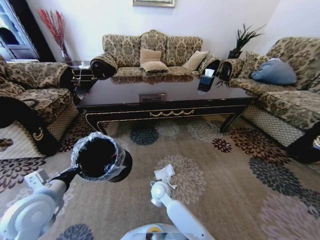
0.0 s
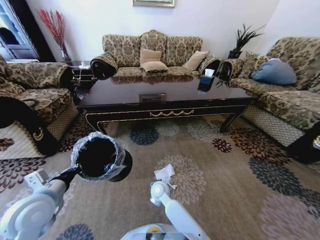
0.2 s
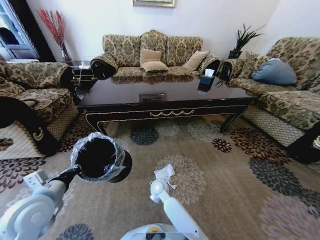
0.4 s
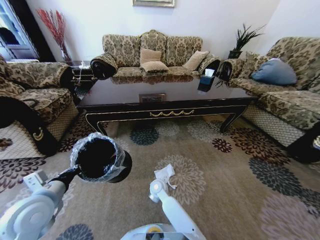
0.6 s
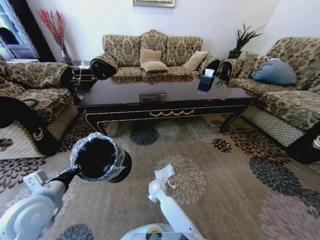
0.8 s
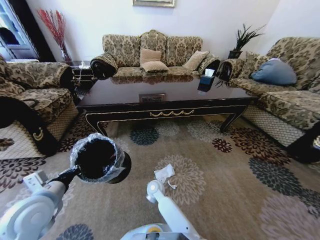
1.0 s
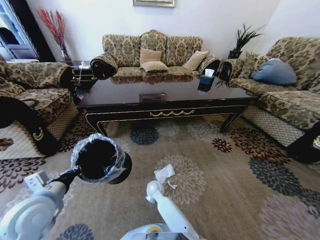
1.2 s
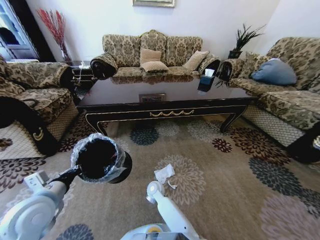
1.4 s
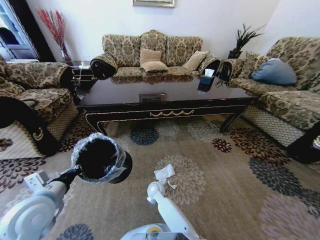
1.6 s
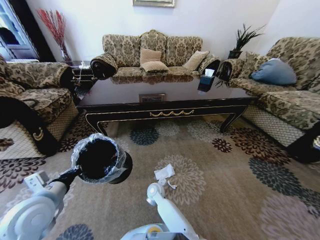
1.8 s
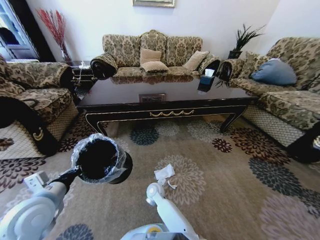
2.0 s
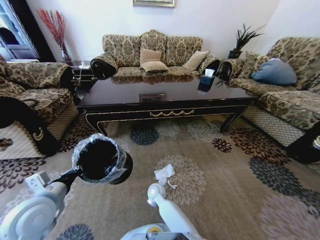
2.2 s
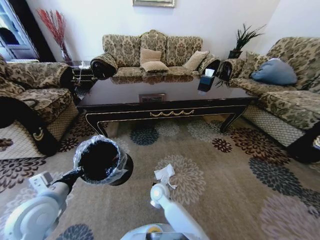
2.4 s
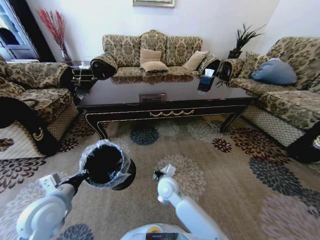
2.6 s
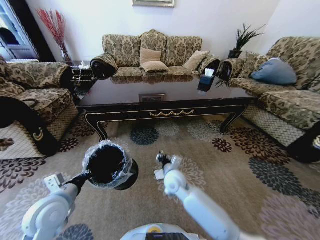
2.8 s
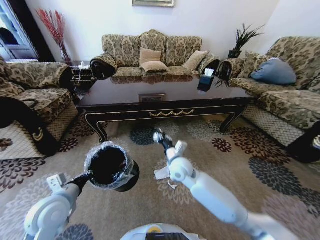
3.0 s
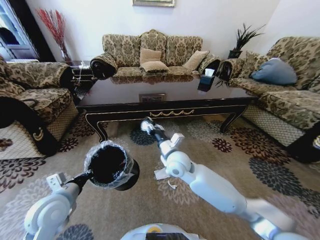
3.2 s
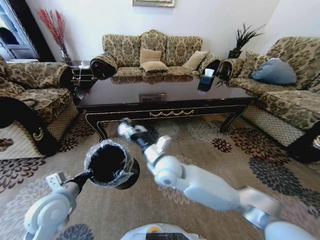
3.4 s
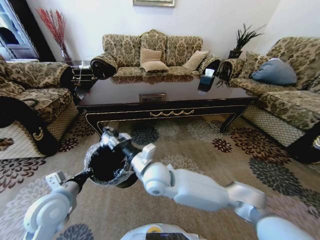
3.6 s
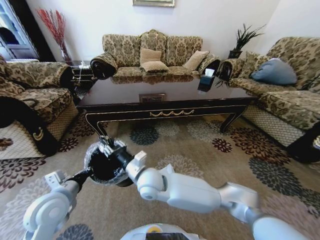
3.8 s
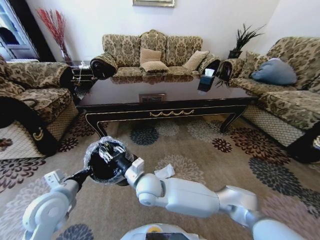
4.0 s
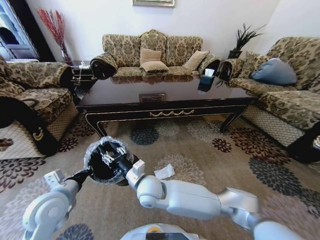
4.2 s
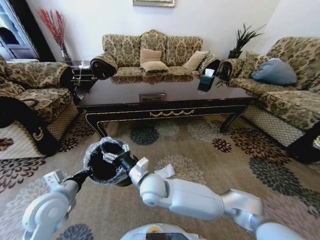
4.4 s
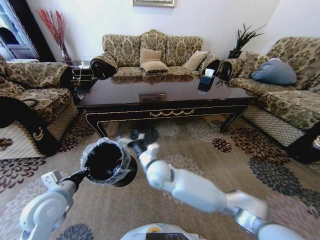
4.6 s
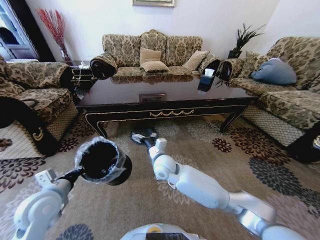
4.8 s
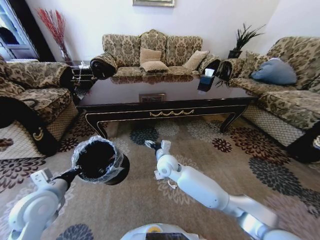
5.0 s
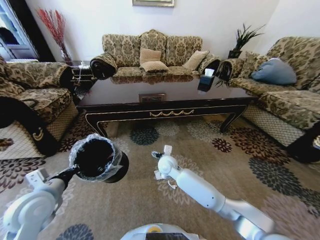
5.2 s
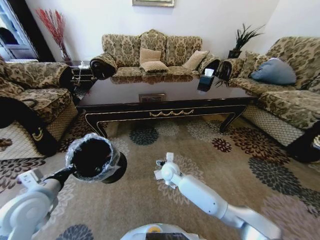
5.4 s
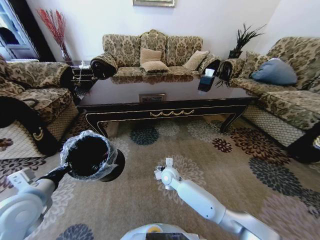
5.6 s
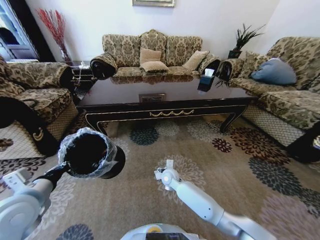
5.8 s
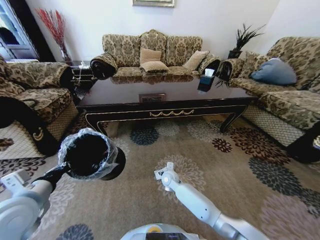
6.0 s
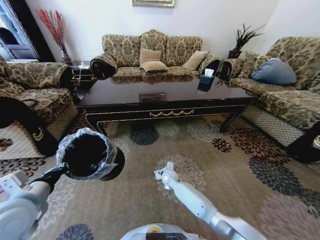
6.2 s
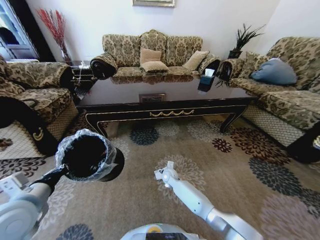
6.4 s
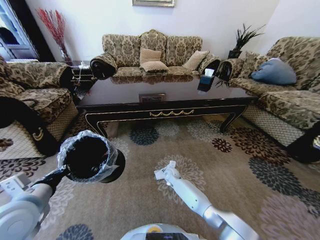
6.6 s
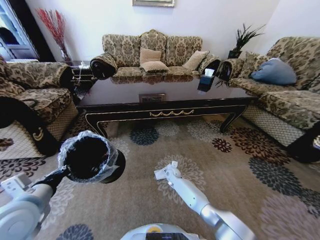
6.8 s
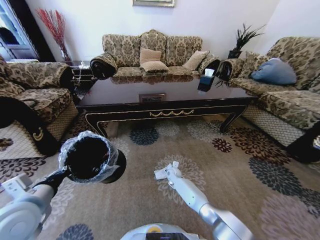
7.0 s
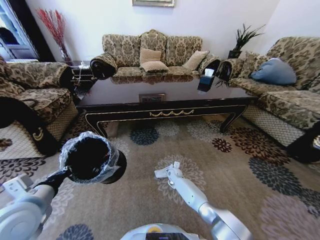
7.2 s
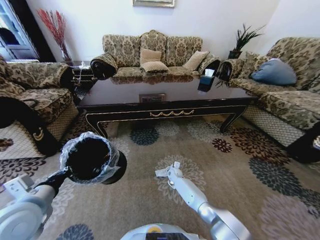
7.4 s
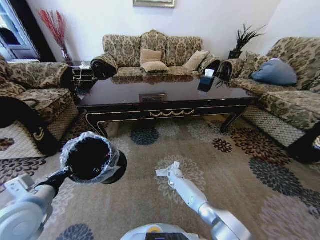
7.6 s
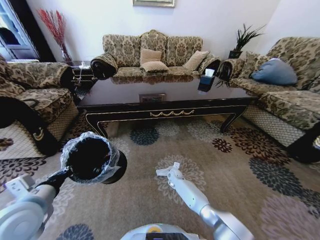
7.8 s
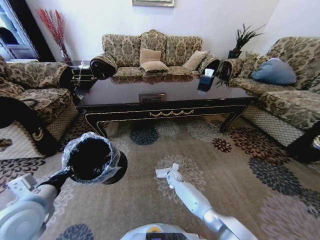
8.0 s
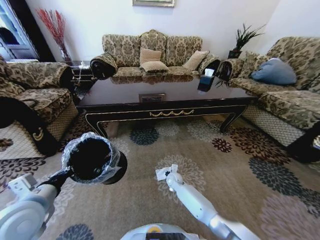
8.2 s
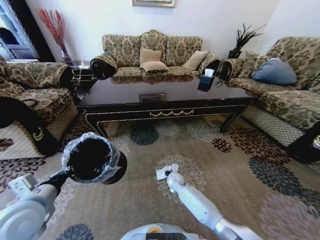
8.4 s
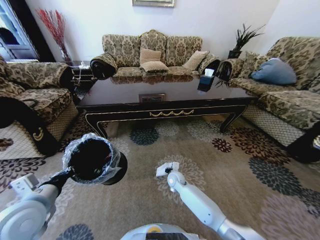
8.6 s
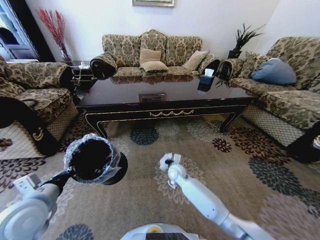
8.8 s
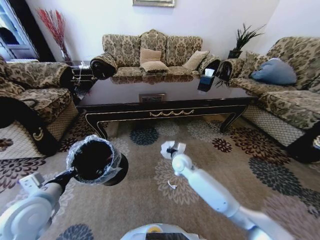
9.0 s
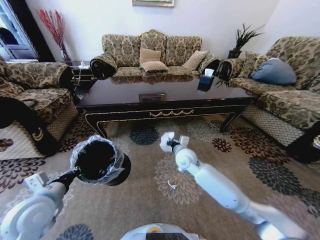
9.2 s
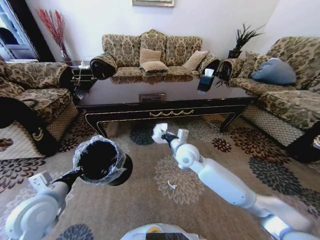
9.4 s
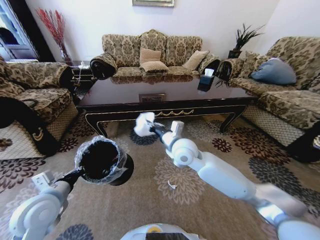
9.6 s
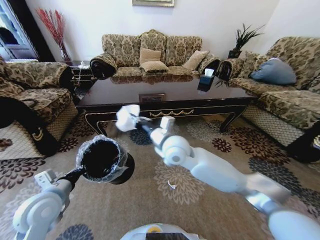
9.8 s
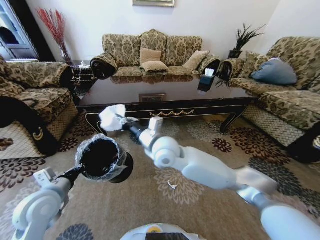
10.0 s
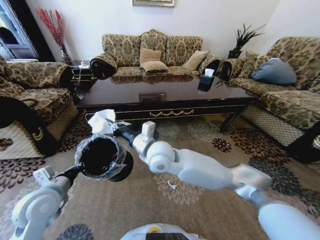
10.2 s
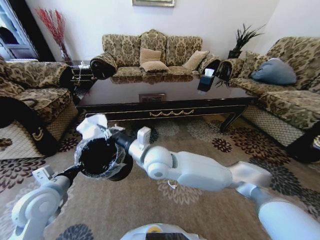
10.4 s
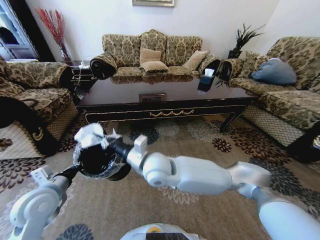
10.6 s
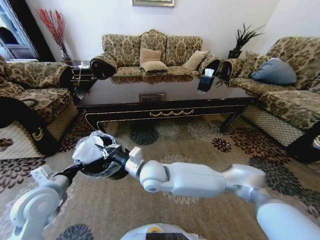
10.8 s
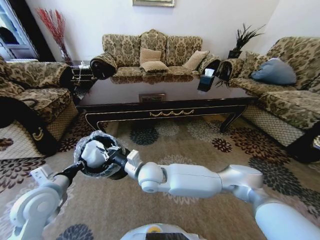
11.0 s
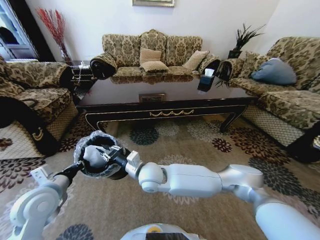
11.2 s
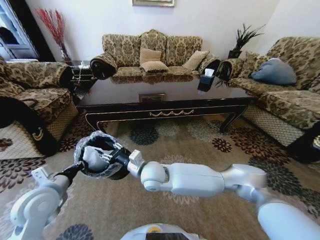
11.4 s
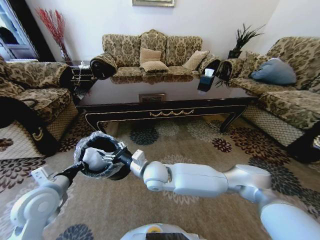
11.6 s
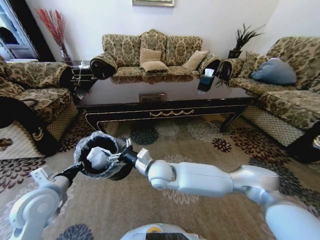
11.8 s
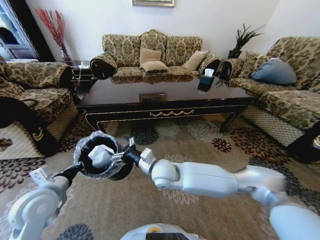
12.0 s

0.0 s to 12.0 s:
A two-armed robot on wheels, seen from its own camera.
Task of the whole recording: Move to the front of the table and pick up the trash from the floor, then place it into the trash bin.
0.0 to 1.6 s: The right gripper moves downward, approximately 5 cm.
1.6 to 3.0 s: The right gripper heads upward and to the right, covering roughly 25 cm, and closes.
3.0 to 4.4 s: The right gripper travels to the left and backward by roughly 15 cm, and opens up.
4.4 to 6.0 s: The right gripper shifts some 25 cm downward, forward and to the right. The left gripper moves upward, about 5 cm.
6.0 to 7.6 s: The right gripper travels downward, forward and to the right by some 15 cm.
7.6 to 9.0 s: The right gripper goes some 20 cm upward, and closes up.
9.0 to 10.4 s: The right gripper travels upward, to the left and backward by about 25 cm.
10.4 to 12.0 s: The right gripper travels downward by roughly 10 cm, and opens its fingers.

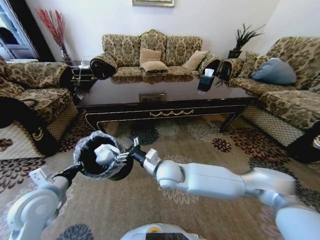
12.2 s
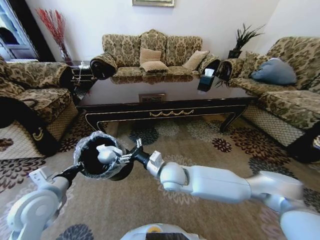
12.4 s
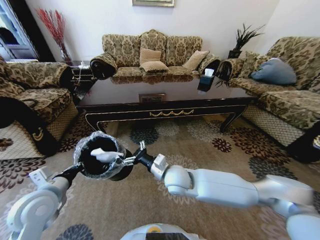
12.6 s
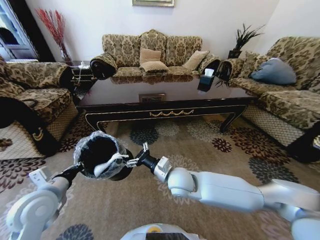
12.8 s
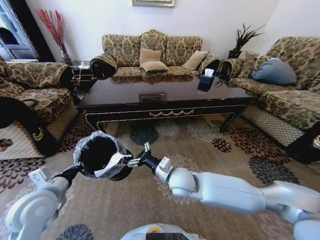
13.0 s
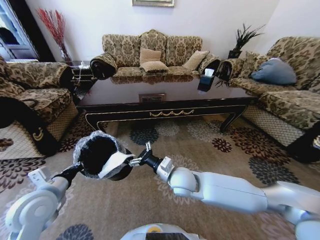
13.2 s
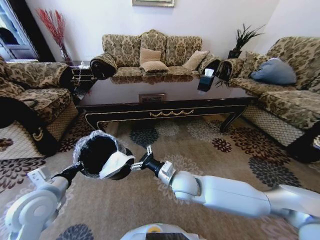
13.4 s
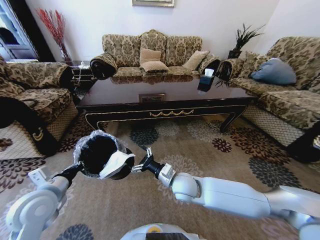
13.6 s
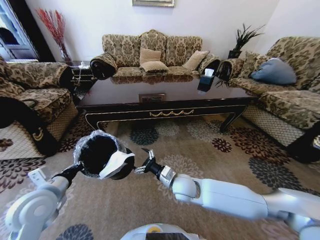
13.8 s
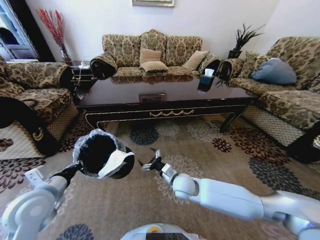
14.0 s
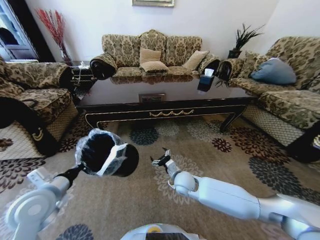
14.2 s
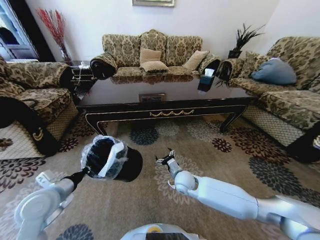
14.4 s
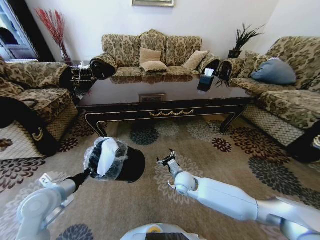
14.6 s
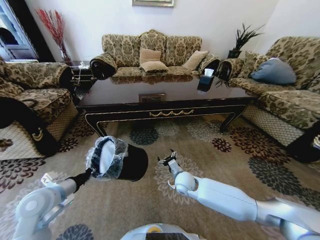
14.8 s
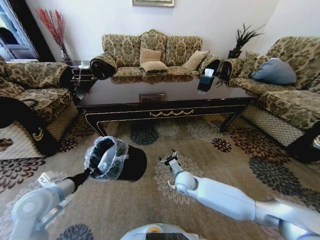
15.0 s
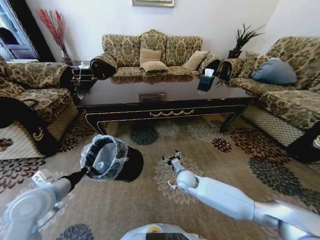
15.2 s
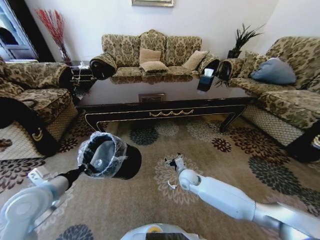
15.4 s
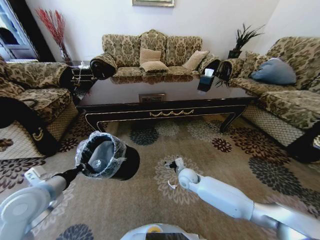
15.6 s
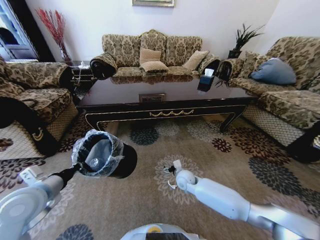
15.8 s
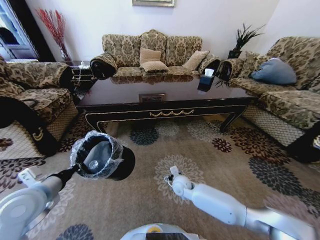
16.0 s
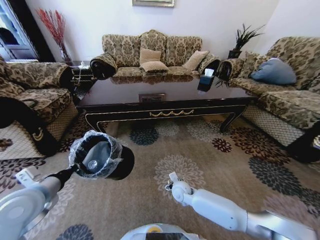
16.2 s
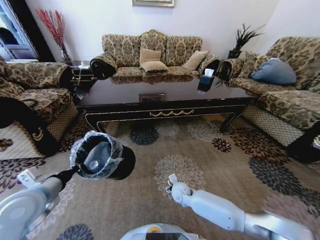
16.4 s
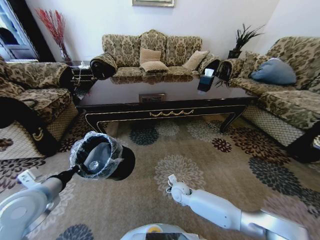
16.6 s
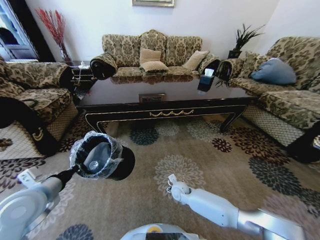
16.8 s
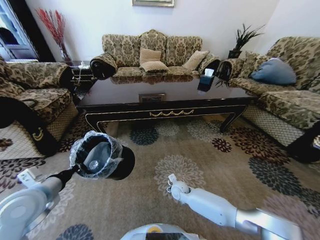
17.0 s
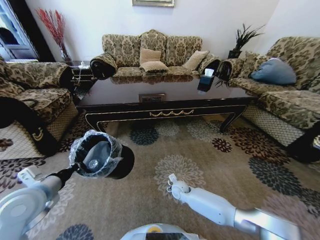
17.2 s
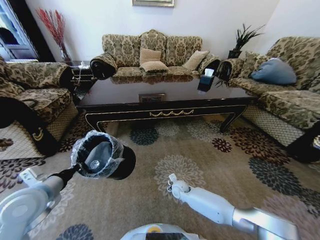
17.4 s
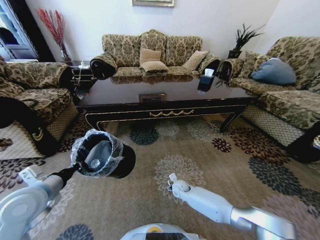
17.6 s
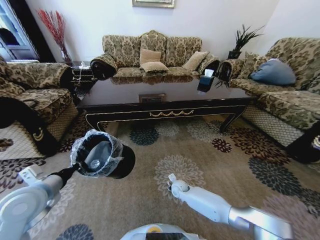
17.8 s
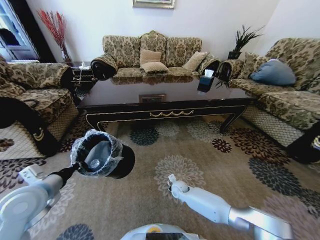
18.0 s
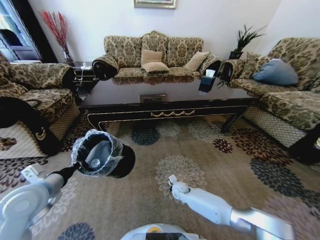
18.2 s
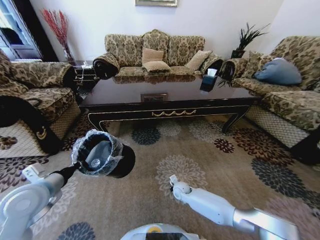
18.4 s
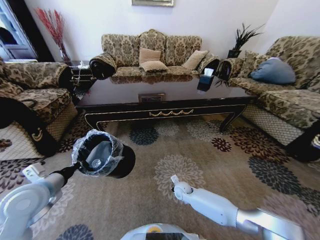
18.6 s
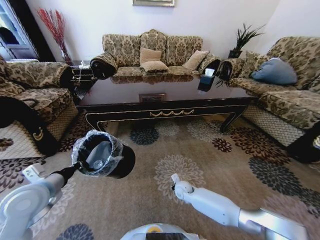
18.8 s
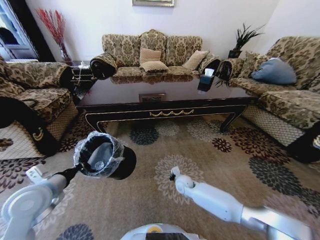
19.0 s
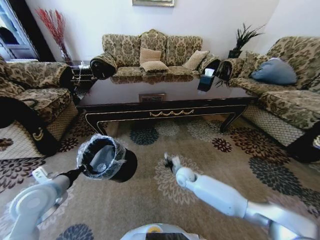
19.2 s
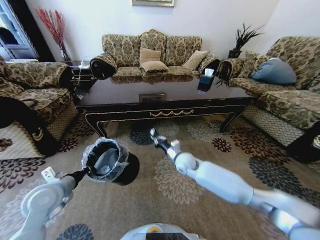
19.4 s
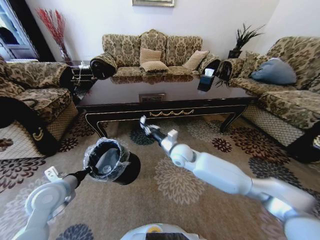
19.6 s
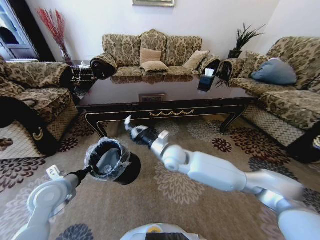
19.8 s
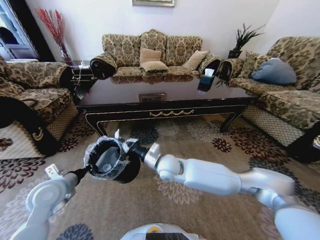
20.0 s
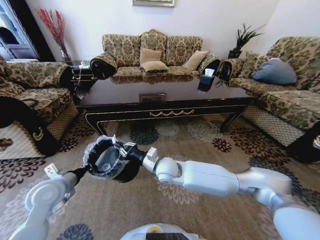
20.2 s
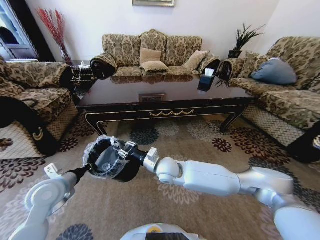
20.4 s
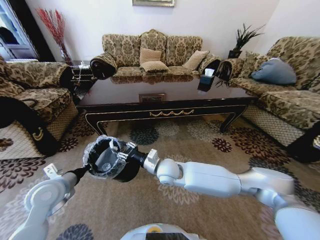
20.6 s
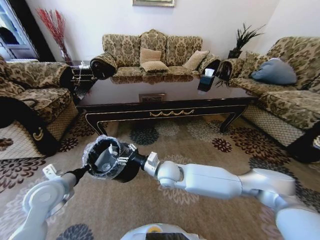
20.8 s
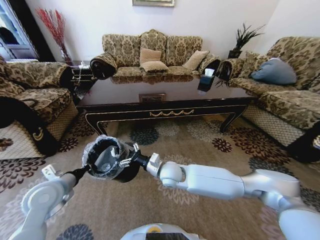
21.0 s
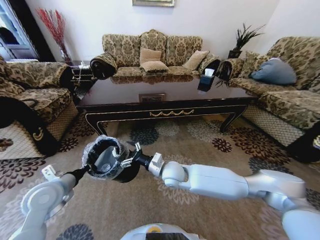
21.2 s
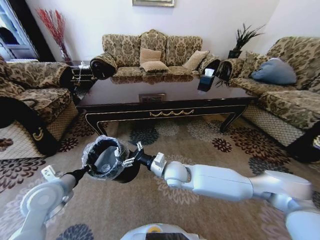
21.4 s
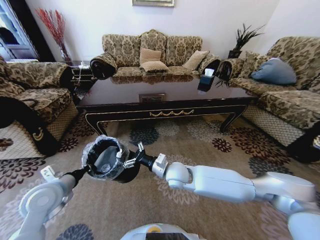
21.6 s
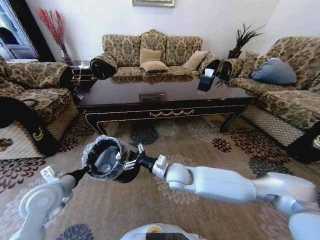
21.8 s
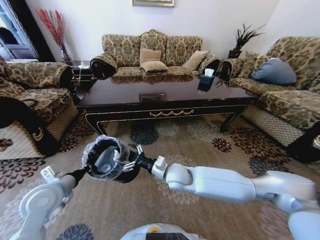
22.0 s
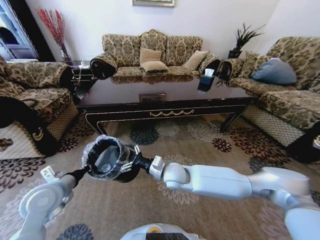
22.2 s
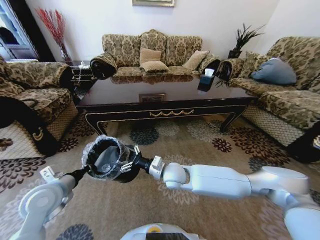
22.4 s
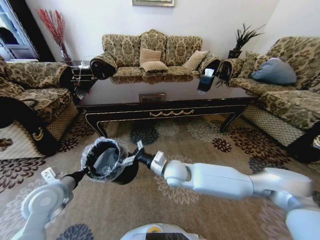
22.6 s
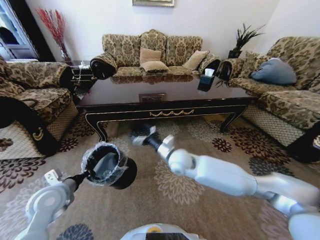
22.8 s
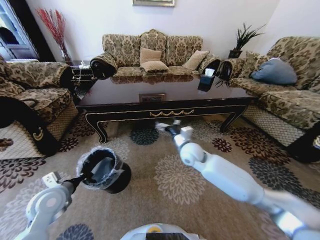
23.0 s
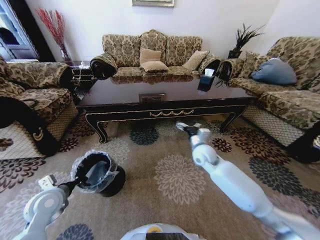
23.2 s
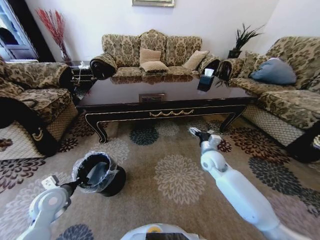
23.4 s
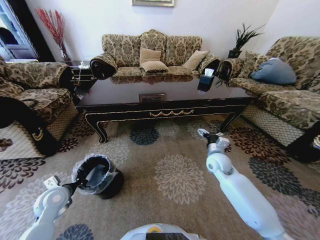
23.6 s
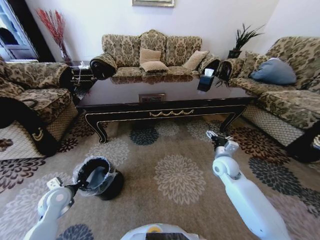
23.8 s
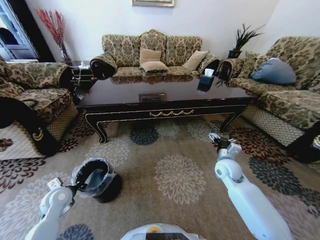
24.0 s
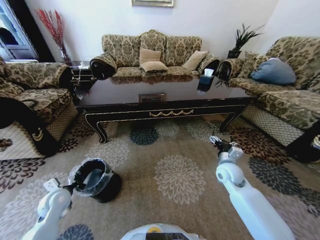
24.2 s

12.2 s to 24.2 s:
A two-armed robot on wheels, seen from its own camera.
Task of the whole recording: Move to the front of the table and pick up the trash from the floor, then place it into the trash bin.
12.2 to 13.8 s: The right gripper heads to the right and downward, covering approximately 10 cm.
13.8 to 15.2 s: The right gripper travels downward and forward by approximately 10 cm.
15.2 to 16.6 s: The right gripper heads downward, covering about 10 cm.
16.6 to 18.2 s: The right gripper moves downward, roughly 5 cm, and closes its fingers.
18.2 to 19.8 s: The left gripper moves about 5 cm. The right gripper shifts roughly 30 cm upward, and closes its fingers.
19.8 to 21.2 s: The right gripper changes place by about 5 cm, and opens its fingers.
21.2 to 22.6 s: There are only small adjustments of the grippers.
22.6 to 24.2 s: The right gripper travels to the right by approximately 25 cm, while the left gripper travels downward by roughly 10 cm.
